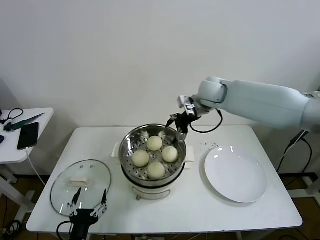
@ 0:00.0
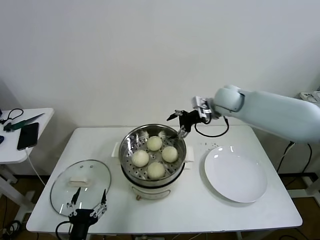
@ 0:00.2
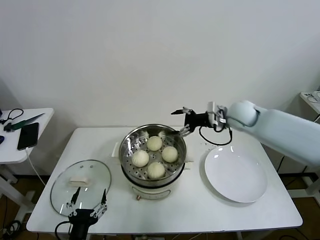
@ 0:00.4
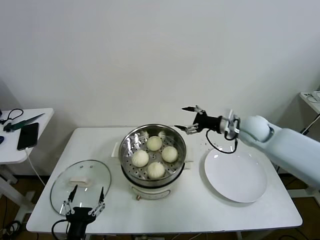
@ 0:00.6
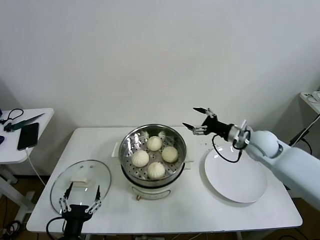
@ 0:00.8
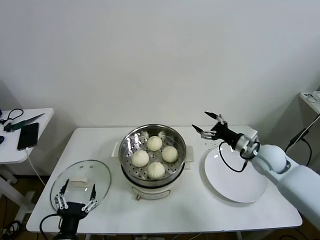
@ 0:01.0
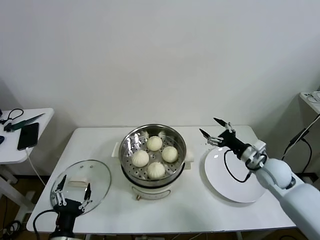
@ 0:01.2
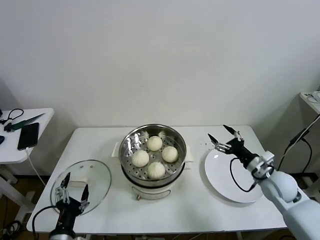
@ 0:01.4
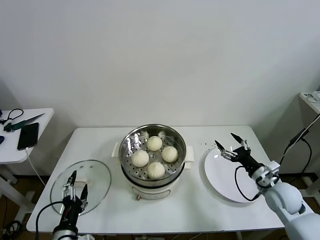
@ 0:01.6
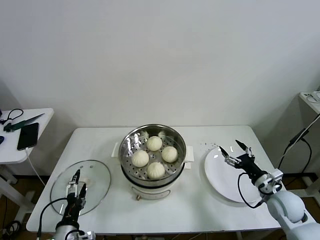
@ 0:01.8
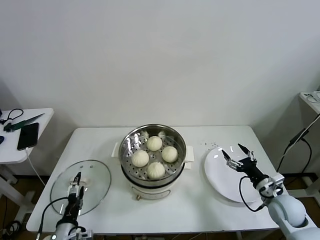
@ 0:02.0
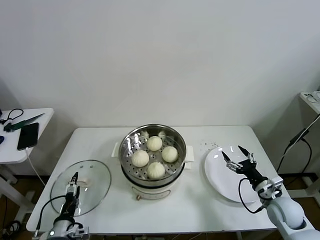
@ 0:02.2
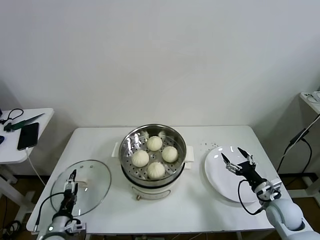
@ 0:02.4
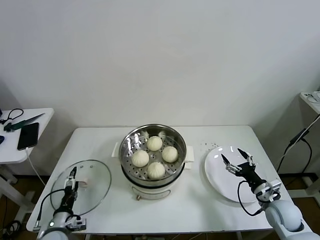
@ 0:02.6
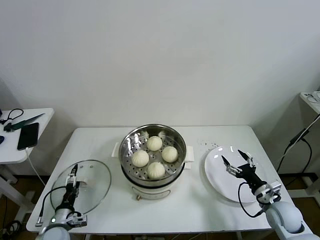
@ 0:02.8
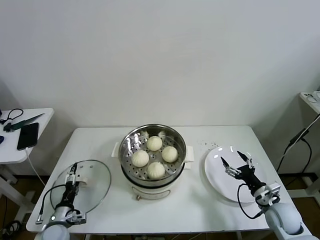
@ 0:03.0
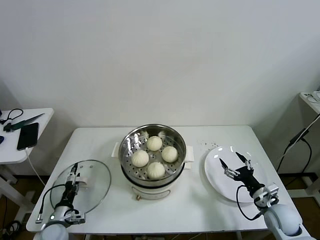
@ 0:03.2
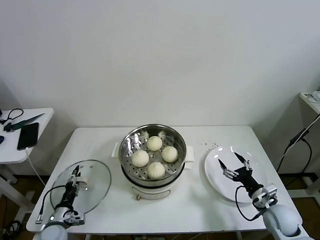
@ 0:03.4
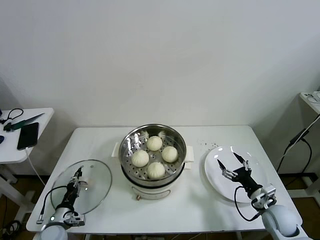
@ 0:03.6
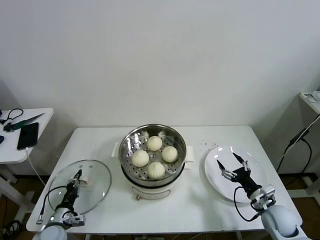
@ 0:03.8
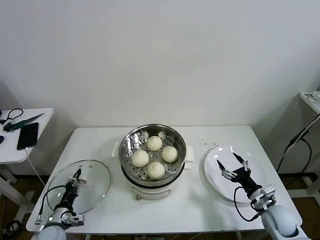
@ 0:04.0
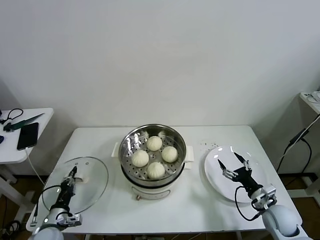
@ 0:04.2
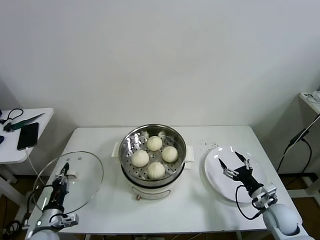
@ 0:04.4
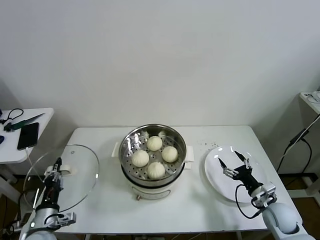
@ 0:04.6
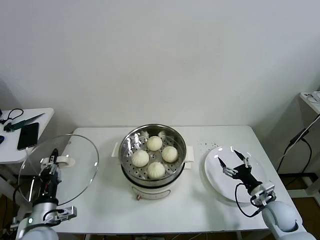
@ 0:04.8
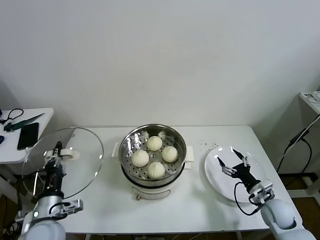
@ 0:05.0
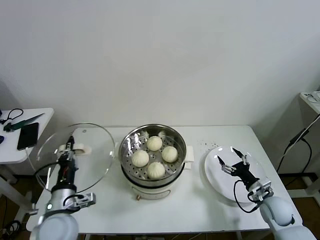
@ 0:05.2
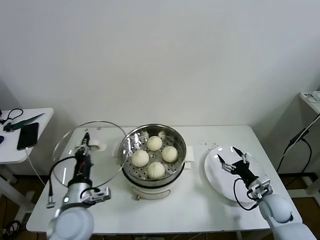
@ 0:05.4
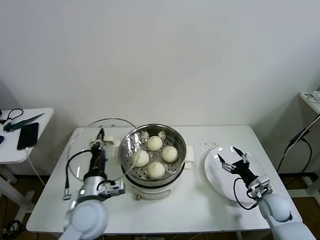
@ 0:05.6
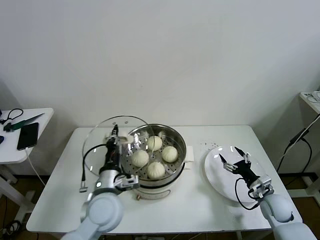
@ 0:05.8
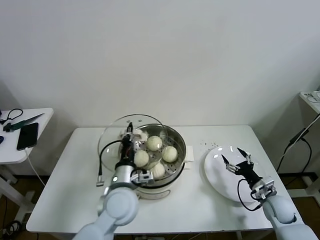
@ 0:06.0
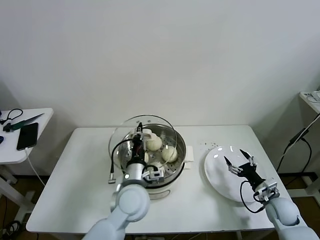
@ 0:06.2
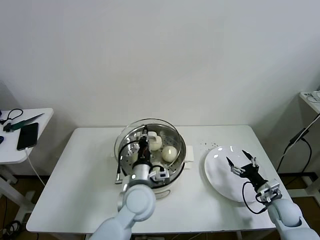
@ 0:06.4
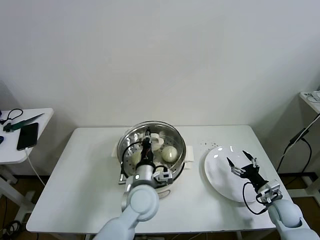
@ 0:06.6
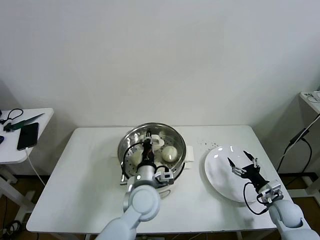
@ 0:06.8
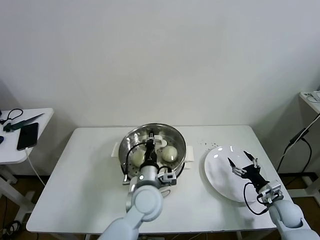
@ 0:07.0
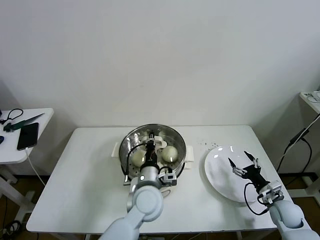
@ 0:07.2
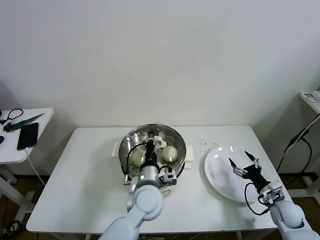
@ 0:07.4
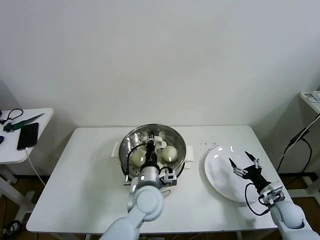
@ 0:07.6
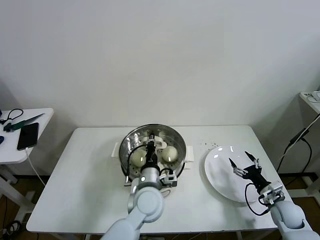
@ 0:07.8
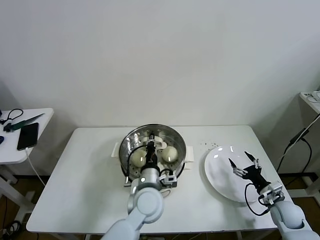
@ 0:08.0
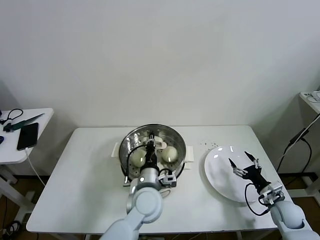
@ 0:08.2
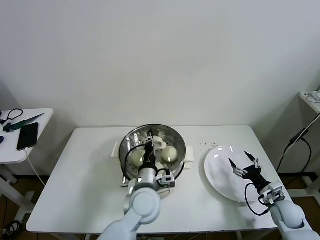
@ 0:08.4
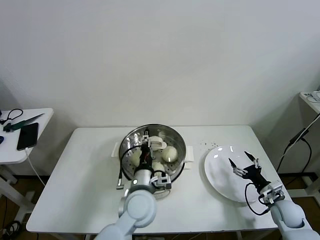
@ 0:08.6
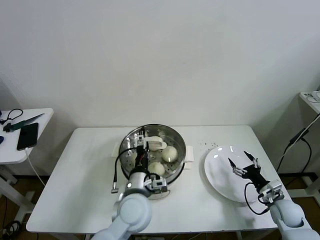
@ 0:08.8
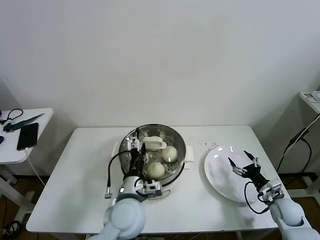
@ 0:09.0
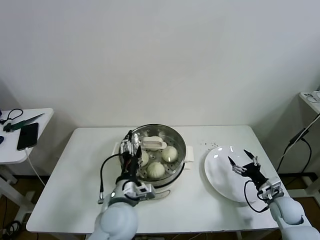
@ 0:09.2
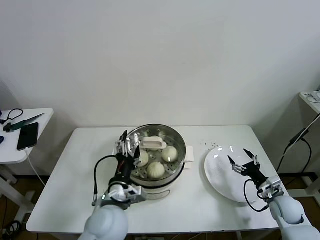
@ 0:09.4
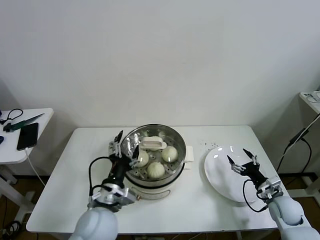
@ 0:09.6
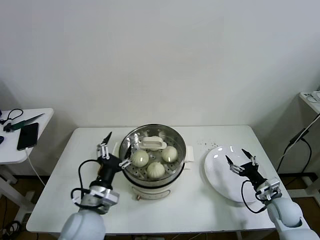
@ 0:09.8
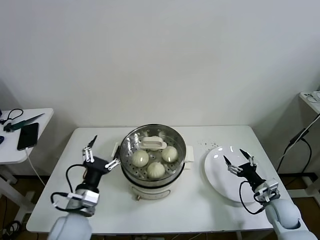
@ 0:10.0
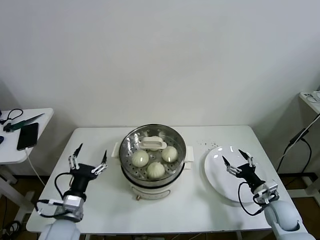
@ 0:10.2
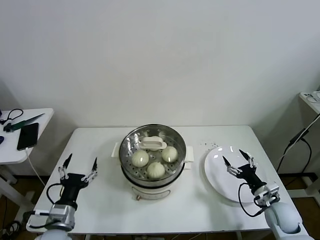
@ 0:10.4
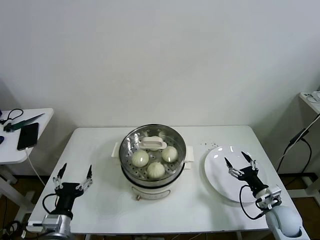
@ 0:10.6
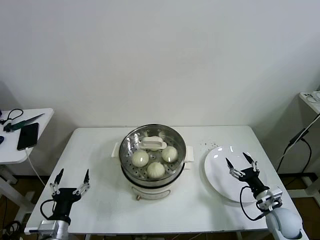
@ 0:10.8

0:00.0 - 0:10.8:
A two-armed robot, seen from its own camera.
Task of the whole recording: take steamed baozi put them in steamer then cover it.
Step, 0:00.0 - 0:03.6: Grasp the pot lid with left gripper.
Step, 0:04.0 - 0:08.4: Place the pot lid on the steamer with left gripper.
0:00.0 - 0:01.6: The right gripper is displaced downward, backward and to the right by roughly 40 cm.
0:01.6 - 0:03.0: The left gripper goes some 20 cm downward, forward and to the left. The right gripper is displaced downward by some 5 cm.
0:03.0 - 0:04.6: The left gripper heads upward, covering approximately 10 cm, and closes its fingers.
0:04.6 - 0:06.2: The left gripper is displaced to the right and upward by approximately 30 cm.
0:06.2 - 0:07.8: The left gripper shifts by some 5 cm.
0:07.8 - 0:09.2: The left gripper moves to the left and backward, some 10 cm, and opens its fingers.
0:09.2 - 0:10.8: The left gripper shifts roughly 20 cm to the left and backward.
